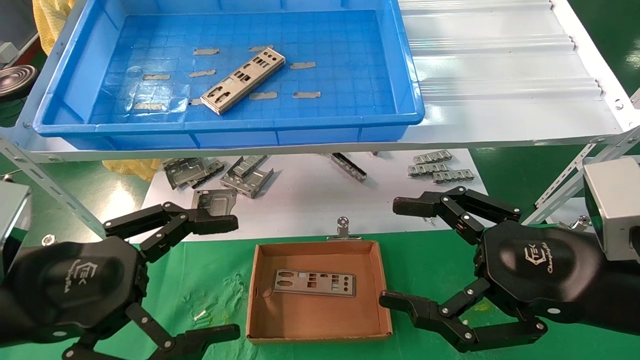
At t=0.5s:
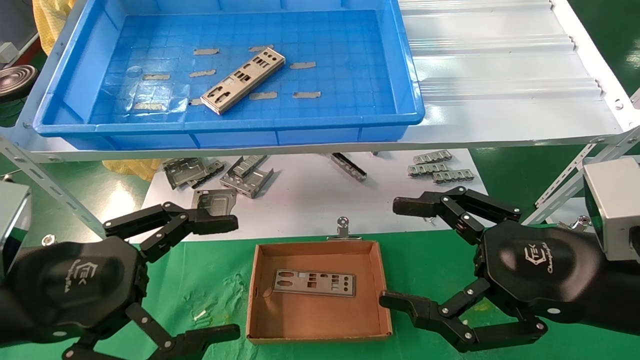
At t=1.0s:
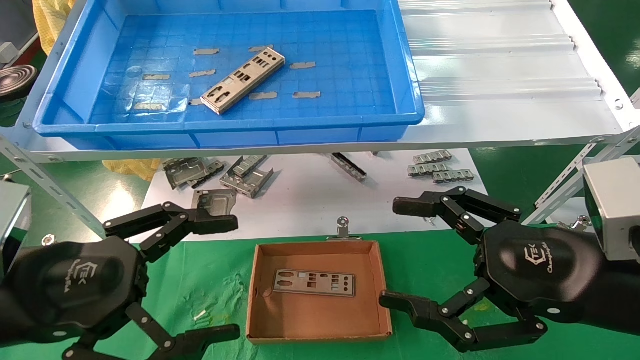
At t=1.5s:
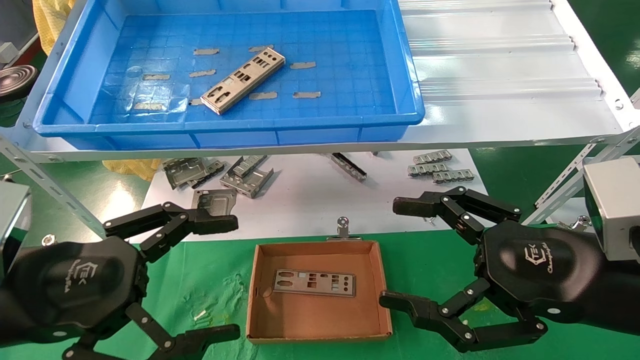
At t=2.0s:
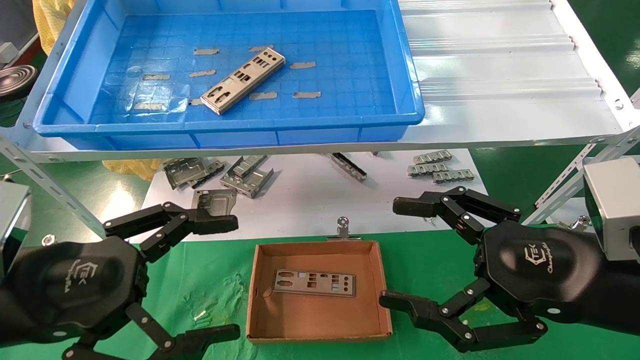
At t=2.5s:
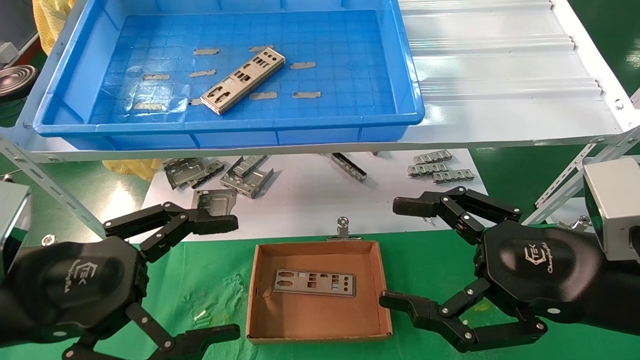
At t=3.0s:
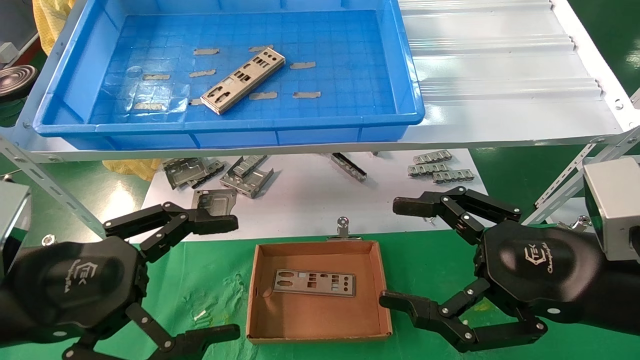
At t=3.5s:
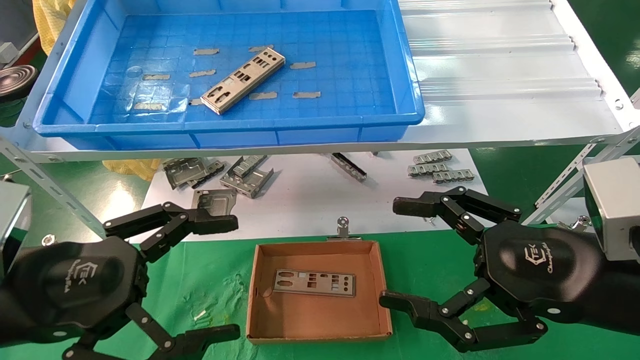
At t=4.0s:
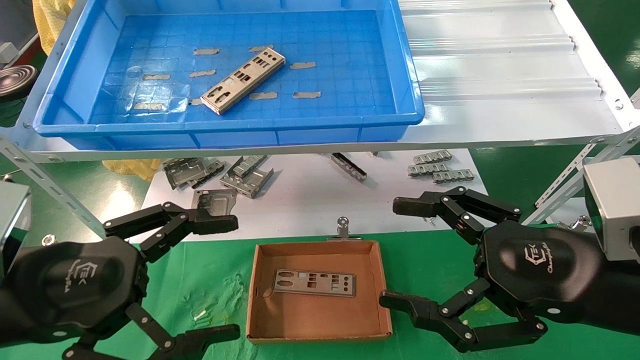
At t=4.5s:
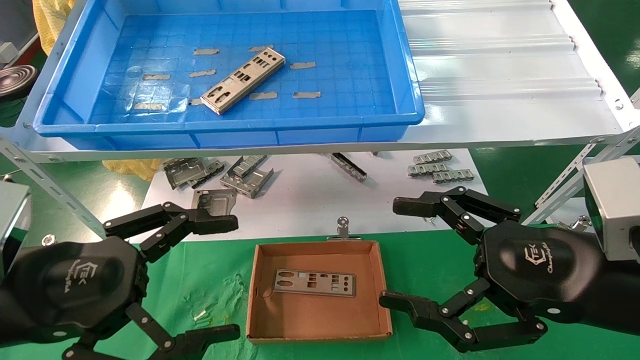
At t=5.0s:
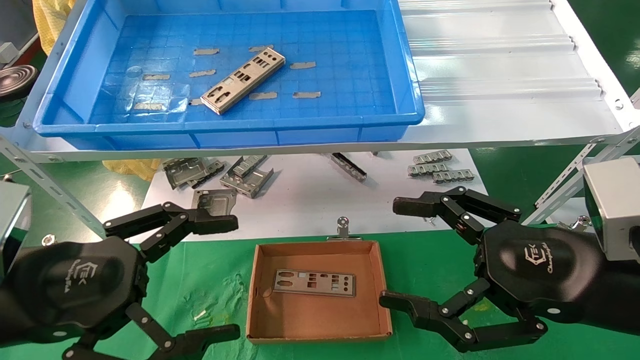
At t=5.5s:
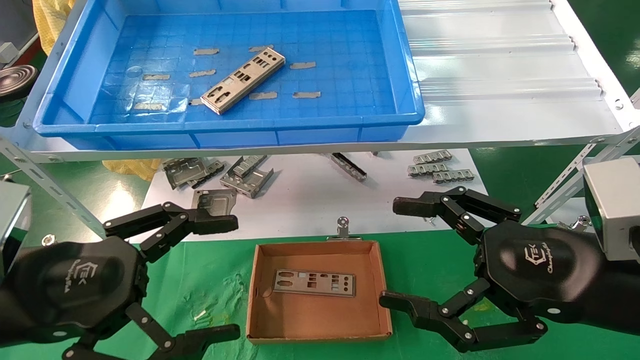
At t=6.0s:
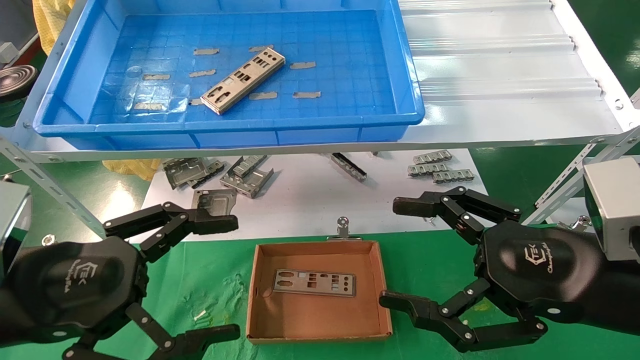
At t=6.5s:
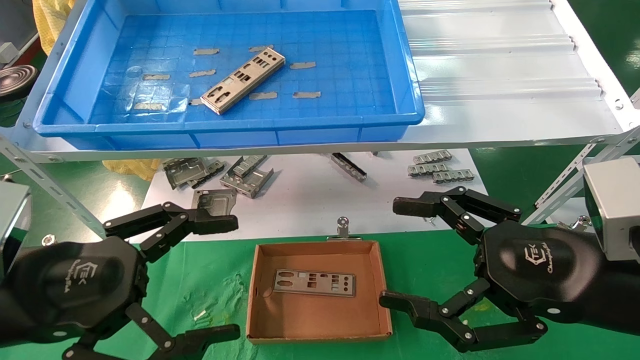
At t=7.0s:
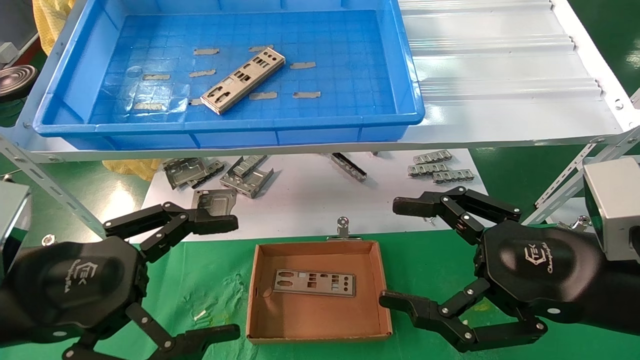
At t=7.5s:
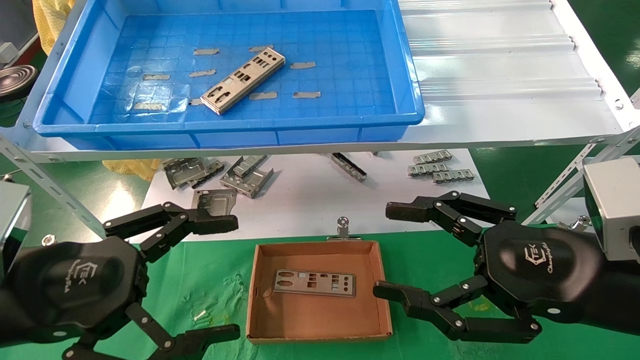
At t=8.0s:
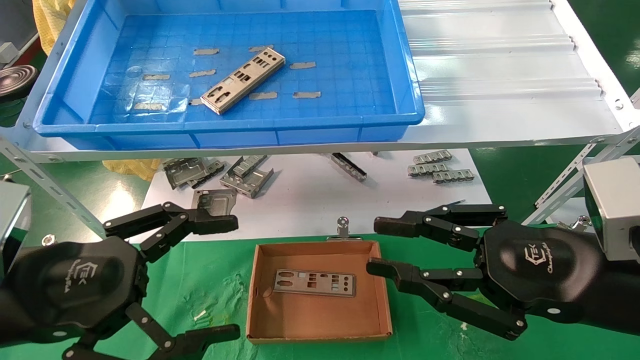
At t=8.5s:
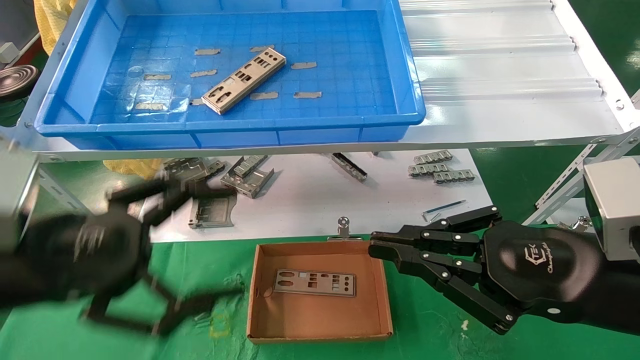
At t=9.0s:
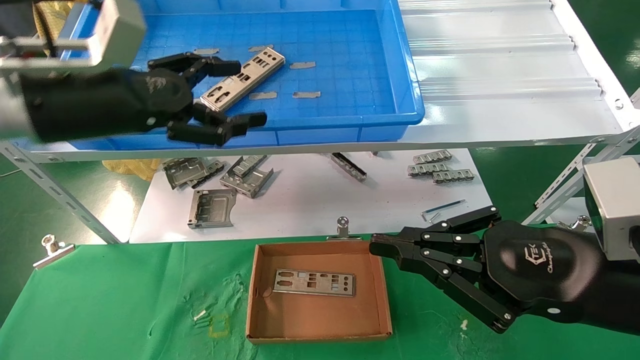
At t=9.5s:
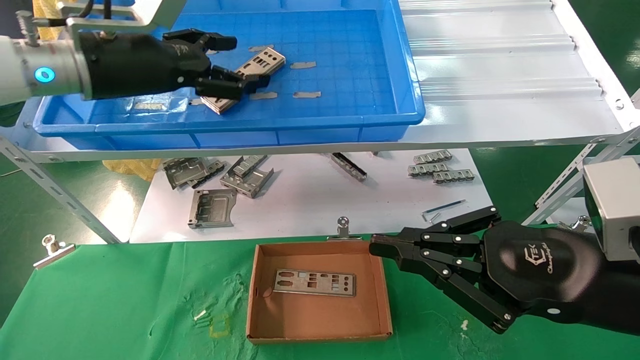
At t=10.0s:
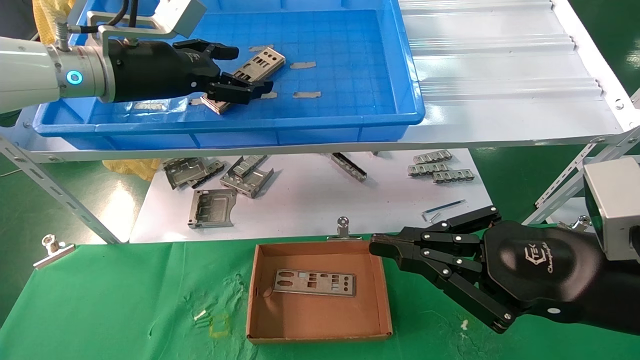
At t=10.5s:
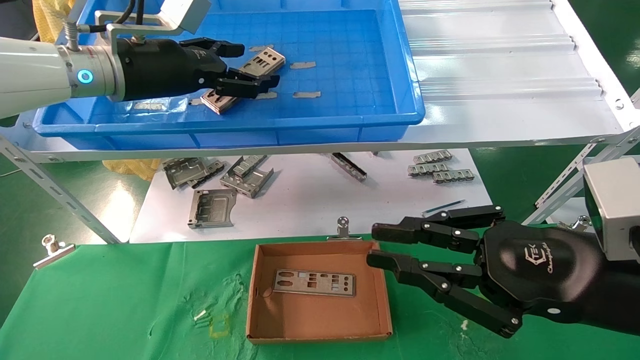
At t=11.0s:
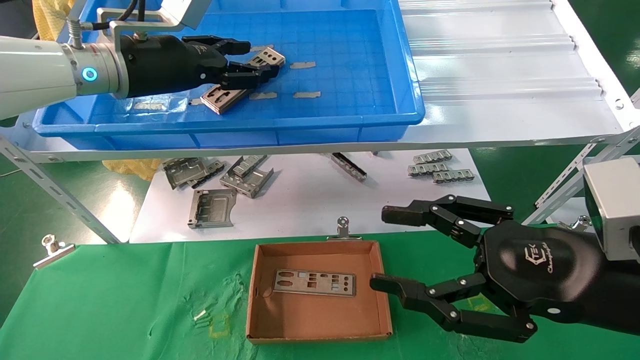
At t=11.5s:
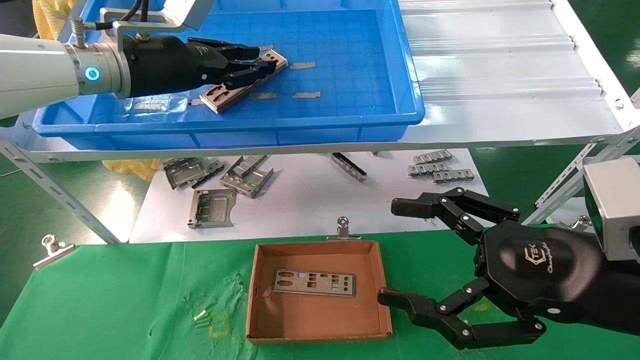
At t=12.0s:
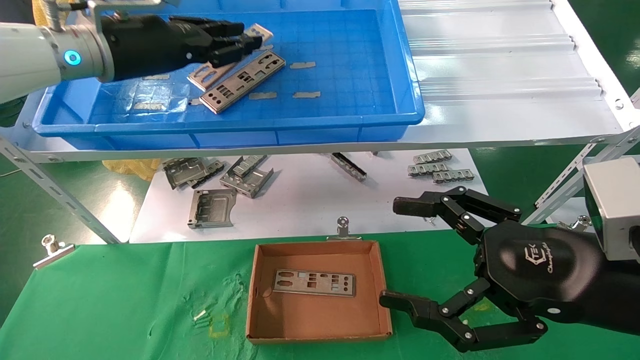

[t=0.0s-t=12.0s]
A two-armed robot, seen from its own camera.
Task of the whole recording: pick up the parts on the tray and put them in the cardboard box.
Step, t=9.0s to t=11.5s: Pick up the IO bracket from the container box.
t=0.0s to t=6.0s: Both grippers stay put.
t=6.0s to t=8.0s: The right gripper closes its fingers.
t=8.0s to t=10.0s: The right gripper closes its fingers; the left gripper moves forward and upward, some 25 cm.
t=10.0s to t=12.0s: The right gripper opens its fingers. The left gripper closes its fingers.

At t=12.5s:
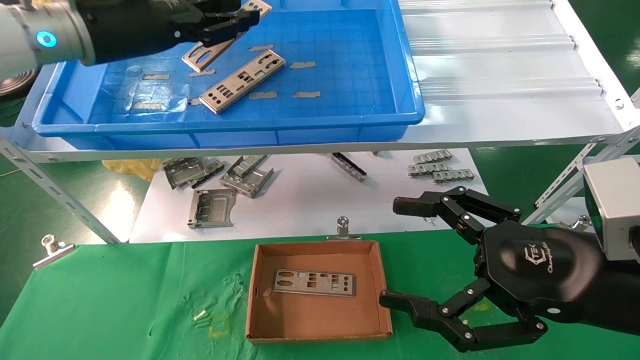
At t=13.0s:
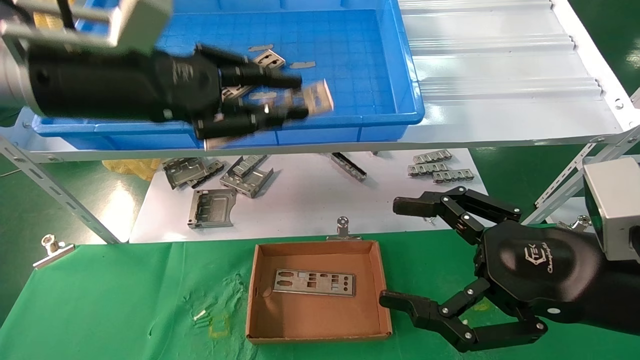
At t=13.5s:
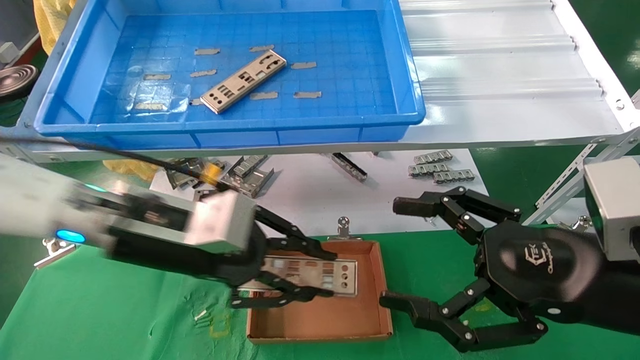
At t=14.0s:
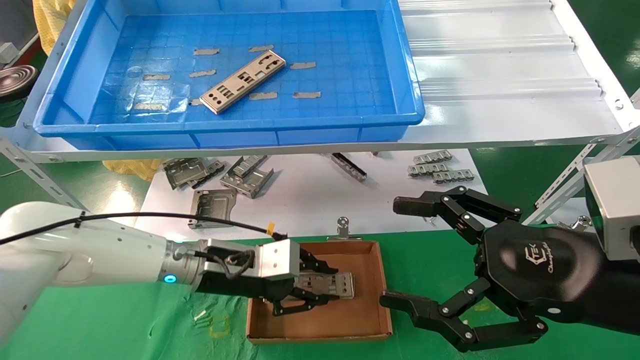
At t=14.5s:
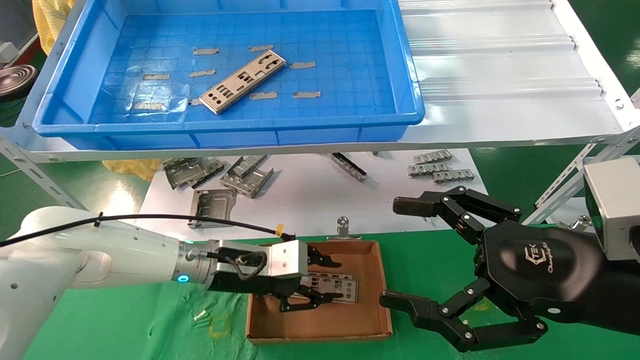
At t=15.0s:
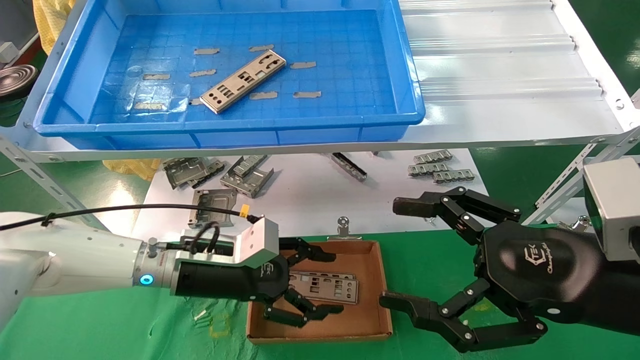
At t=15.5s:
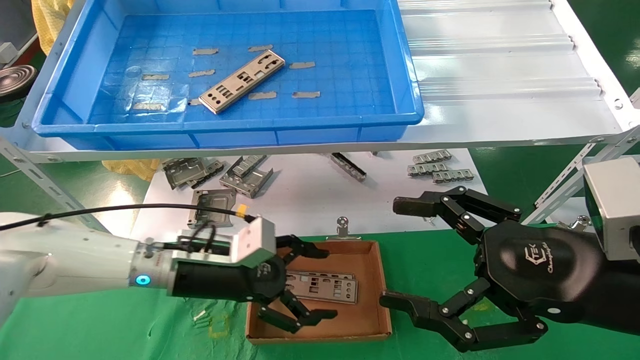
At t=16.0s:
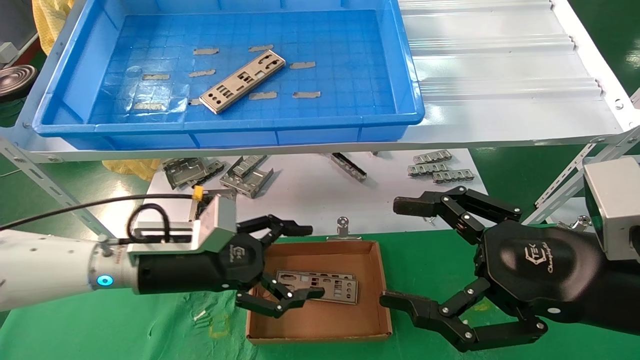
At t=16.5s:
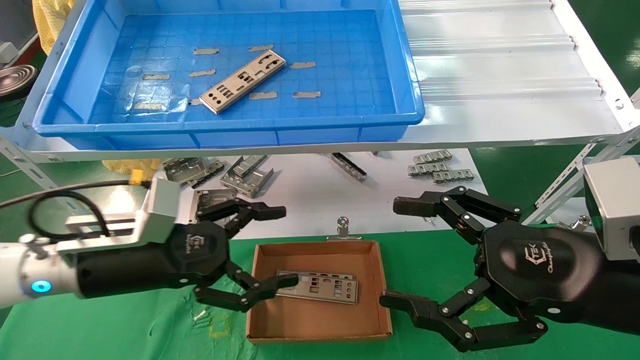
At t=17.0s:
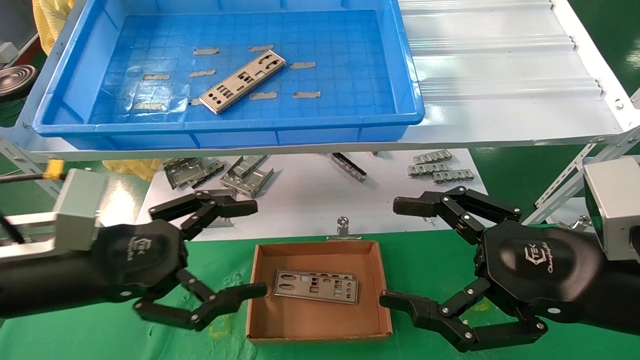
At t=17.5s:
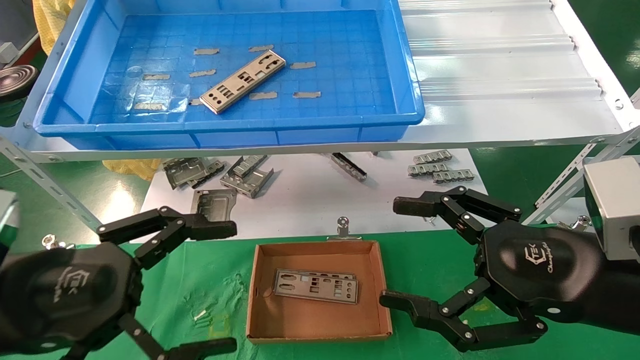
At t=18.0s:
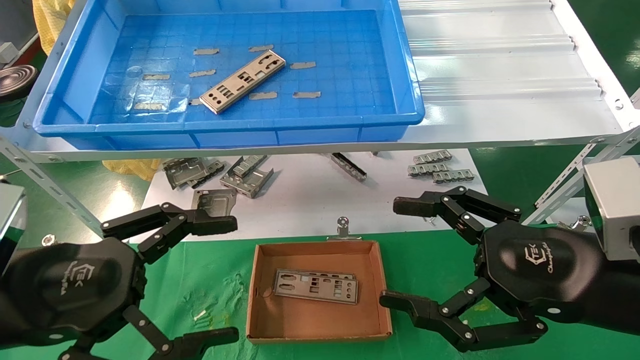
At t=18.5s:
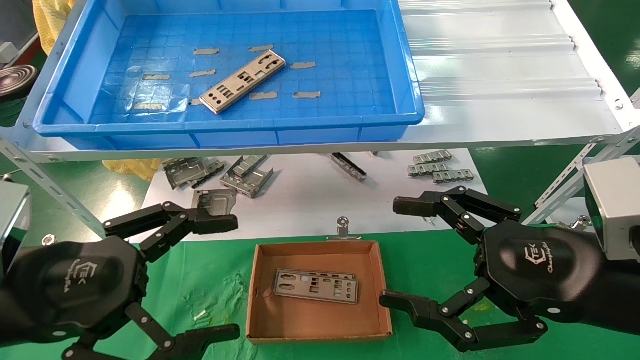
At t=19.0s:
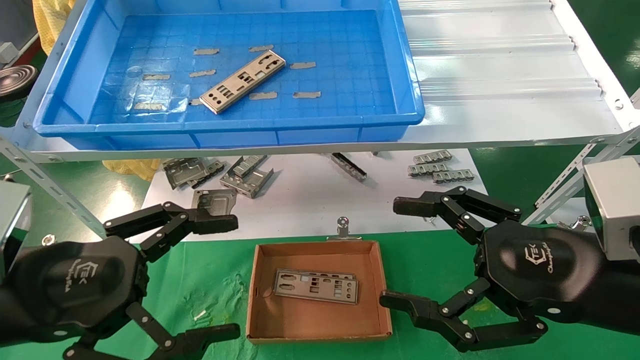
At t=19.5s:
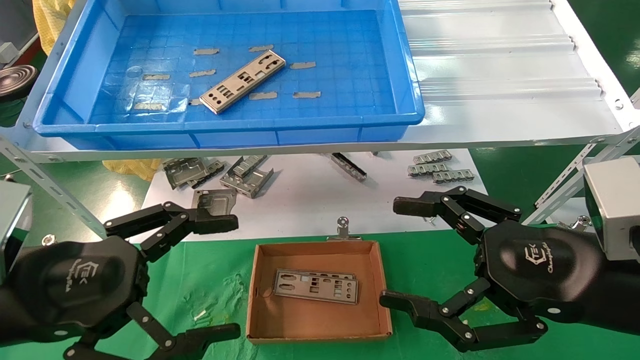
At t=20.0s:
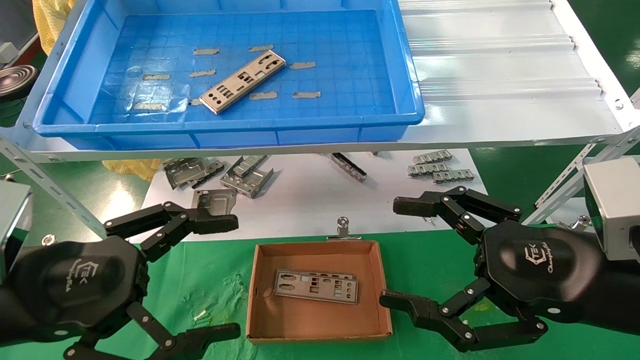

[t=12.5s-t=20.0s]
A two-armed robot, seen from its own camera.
Task of the whole recording: pick up the parts on the tray and put them in the cardboard box.
Step, t=12.5s to t=14.0s: Place the IO bracket into the ingredient slot.
t=12.5s to t=14.5s: The left gripper heads downward, covering approximately 30 cm.
t=14.5s to t=16.5s: The left gripper shifts about 15 cm backward, to the left and upward, and opens.
t=16.5s to t=18.0s: The left gripper goes roughly 10 cm backward.
t=18.0s to t=20.0s: Neither gripper changes place.
